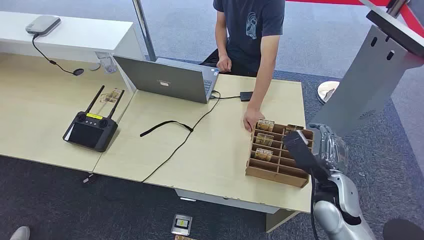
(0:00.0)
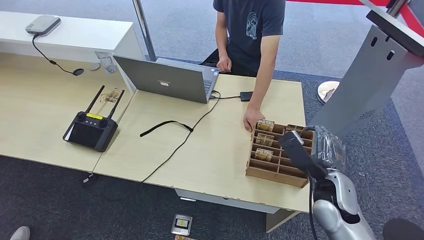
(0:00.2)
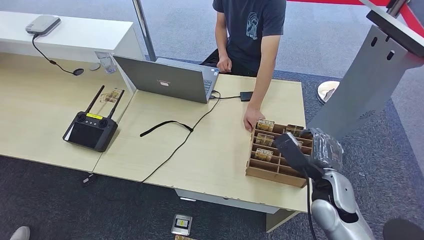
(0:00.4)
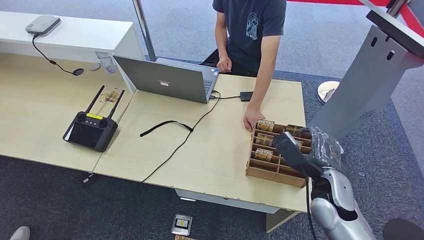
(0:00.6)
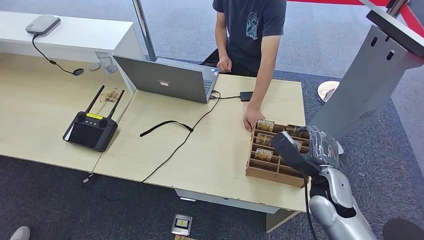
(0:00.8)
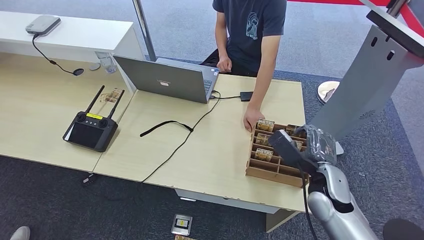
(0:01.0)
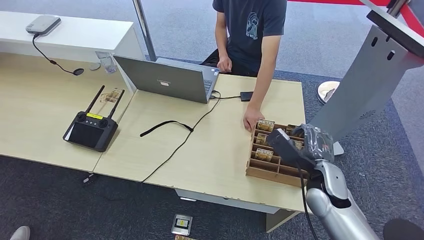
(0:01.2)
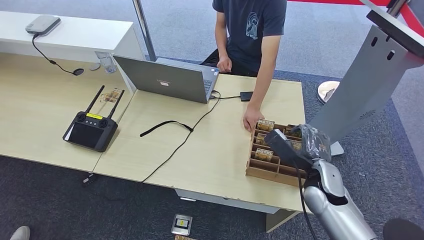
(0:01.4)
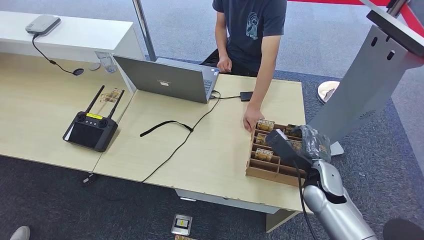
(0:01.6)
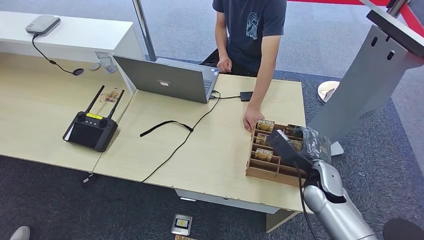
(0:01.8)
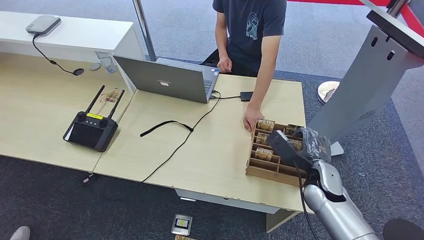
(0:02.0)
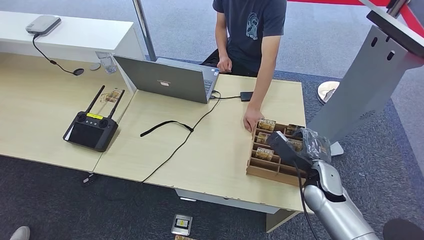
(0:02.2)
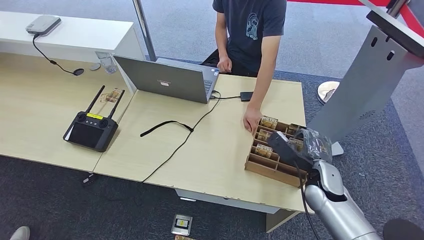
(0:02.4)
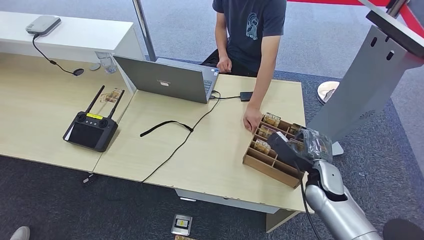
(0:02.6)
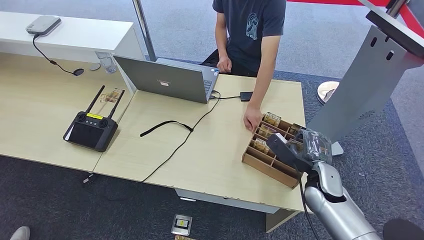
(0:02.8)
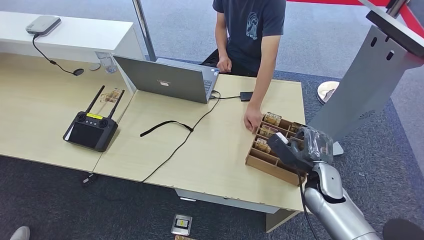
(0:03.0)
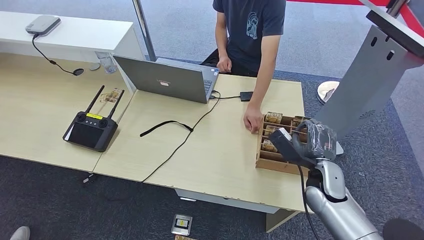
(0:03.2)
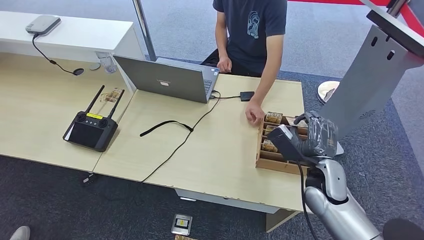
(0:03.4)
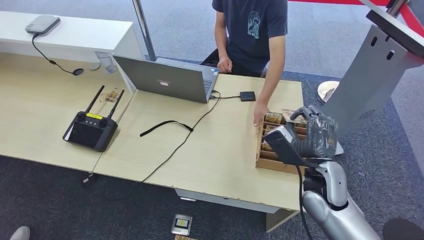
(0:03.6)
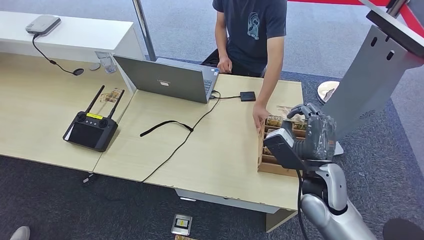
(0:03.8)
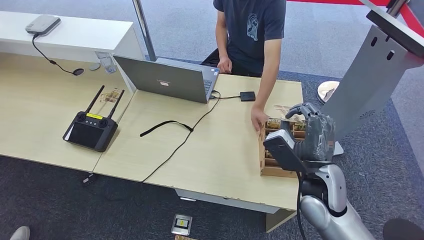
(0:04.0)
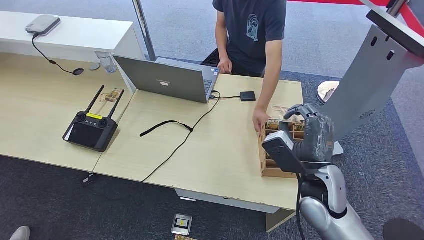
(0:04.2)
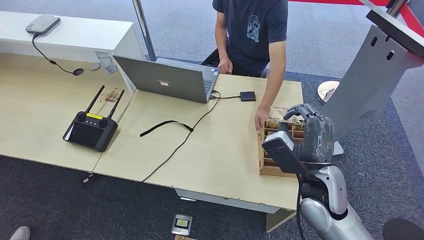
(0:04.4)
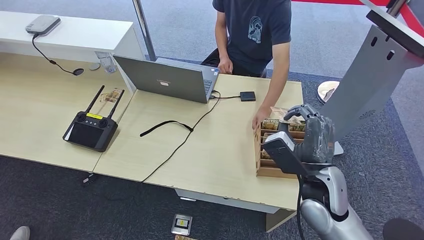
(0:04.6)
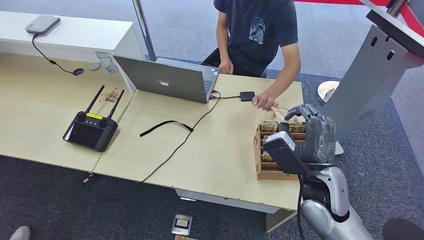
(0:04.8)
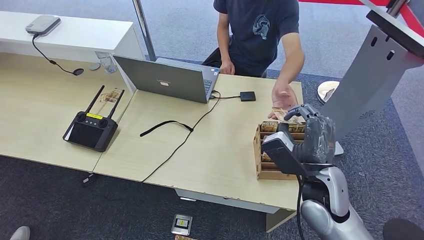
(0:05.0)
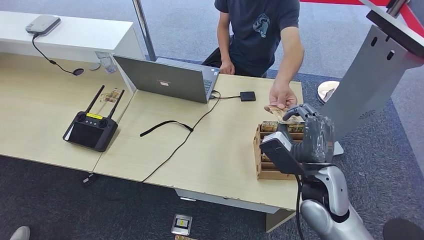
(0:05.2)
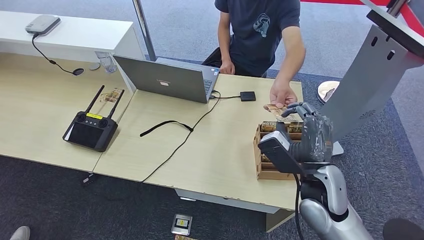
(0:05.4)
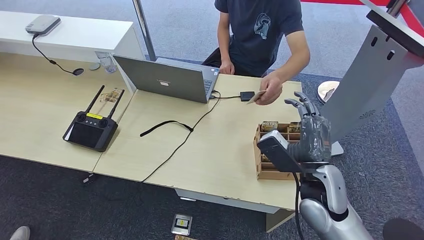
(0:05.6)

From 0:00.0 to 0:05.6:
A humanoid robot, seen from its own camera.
Step, from 0:00.0 to 0:03.4: Pick up the room card from the card holder.
Step, from 0:03.6 to 0:05.6: Hand the room card to the target.
From 0:01.4 to 0:02.8: There are only small adjustments of the hands.
From 0:02.8 to 0:04.2: The right hand is displaced upward and to the left by approximately 10 cm.
From 0:04.2 to 0:05.6: Both hands stay put.

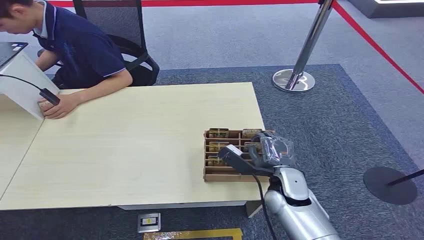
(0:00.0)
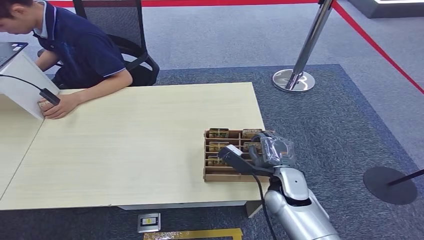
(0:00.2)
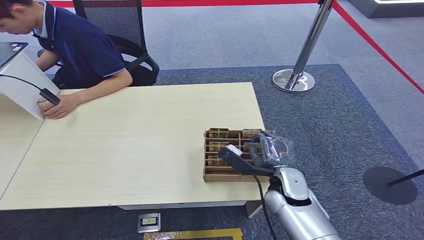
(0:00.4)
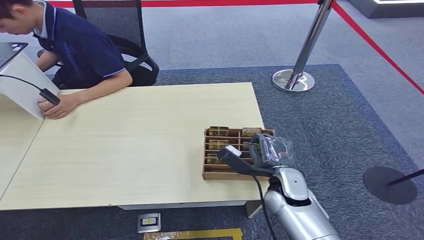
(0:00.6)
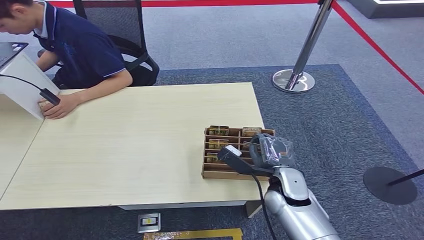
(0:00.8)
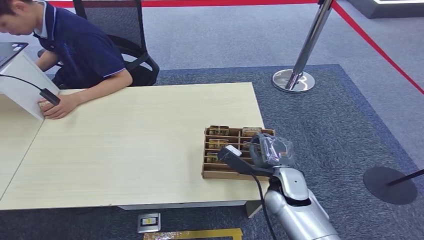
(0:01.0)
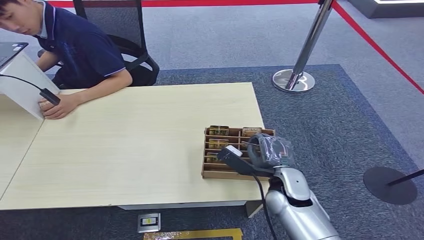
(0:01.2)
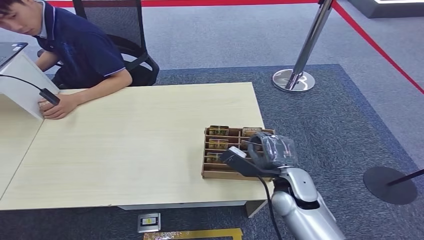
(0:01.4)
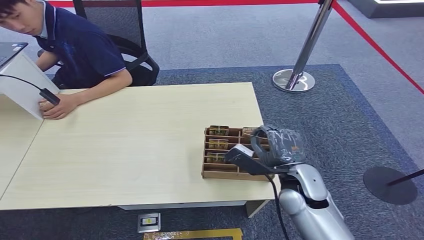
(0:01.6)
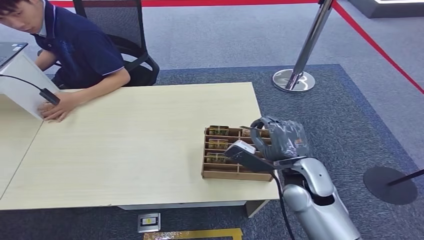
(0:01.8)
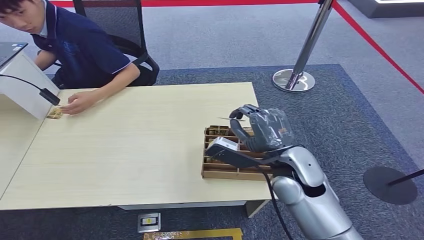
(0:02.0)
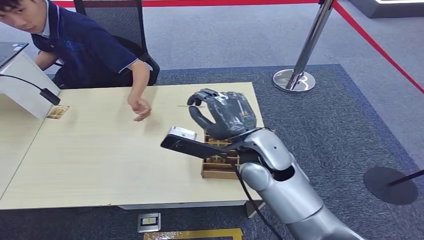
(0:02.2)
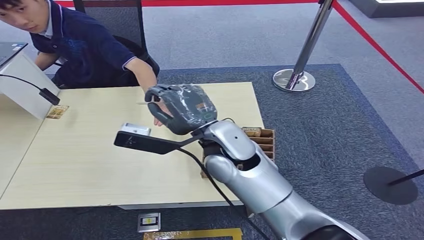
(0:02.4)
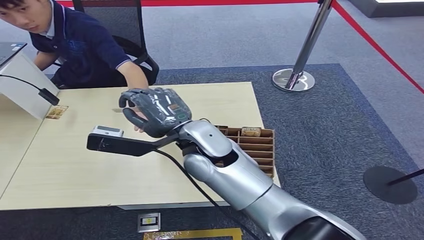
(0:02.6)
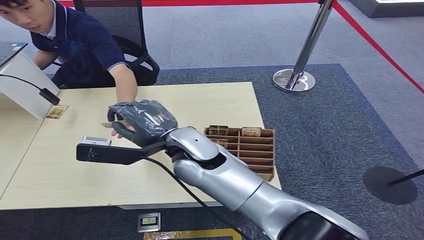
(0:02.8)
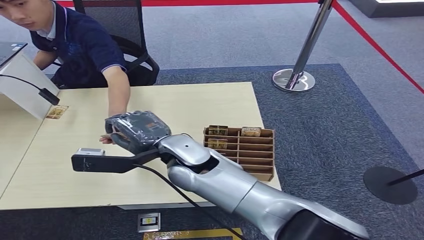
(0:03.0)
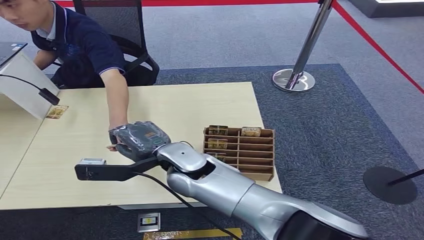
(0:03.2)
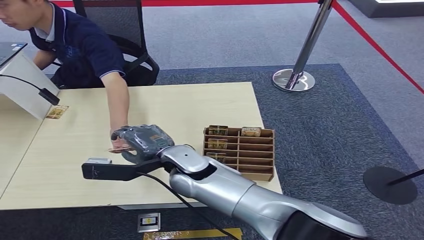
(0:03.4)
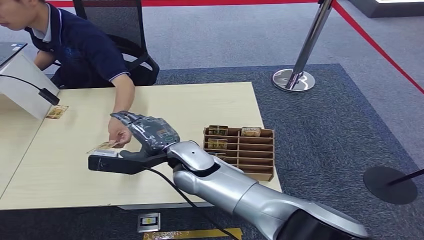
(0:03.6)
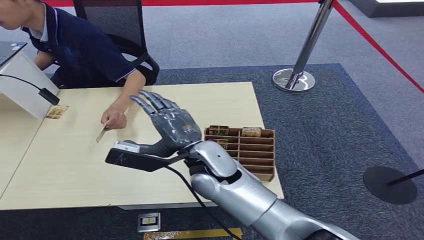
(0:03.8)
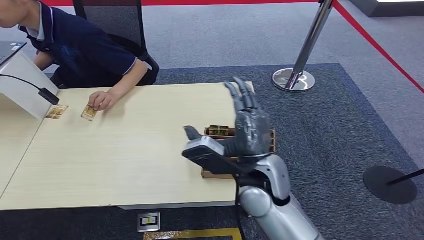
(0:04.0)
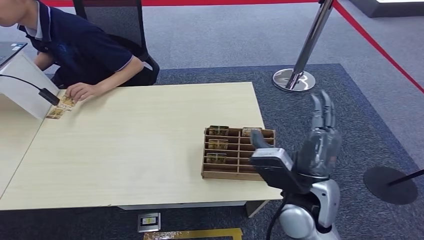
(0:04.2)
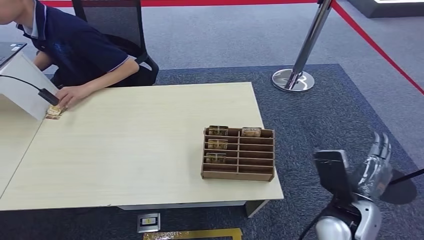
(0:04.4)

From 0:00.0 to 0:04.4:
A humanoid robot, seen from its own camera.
Step, from 0:00.0 to 0:01.8: Pick up the room card from the card holder.
Step, from 0:02.0 to 0:04.4: Hand the room card to the target.
From 0:01.4 to 0:03.0: The right hand heads to the left and upward, covering some 25 cm.
